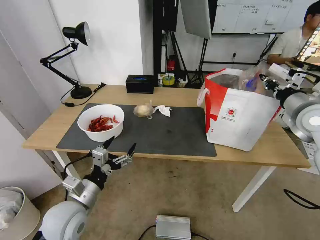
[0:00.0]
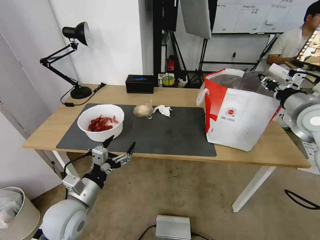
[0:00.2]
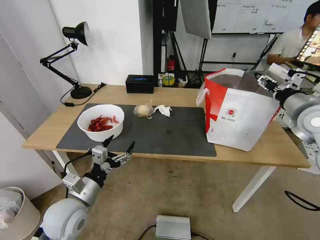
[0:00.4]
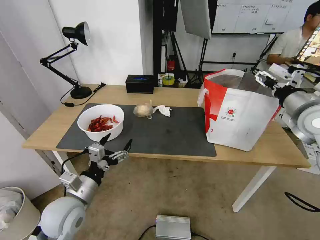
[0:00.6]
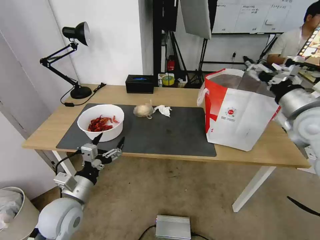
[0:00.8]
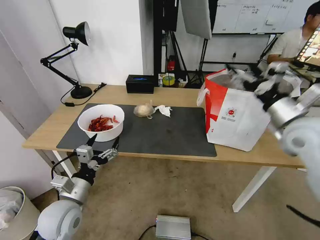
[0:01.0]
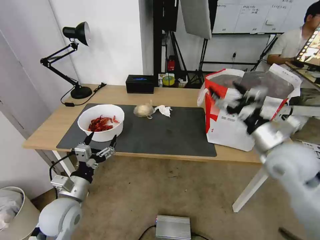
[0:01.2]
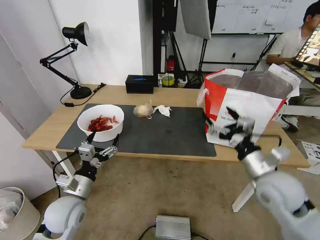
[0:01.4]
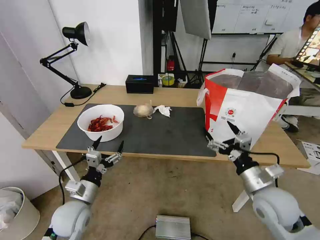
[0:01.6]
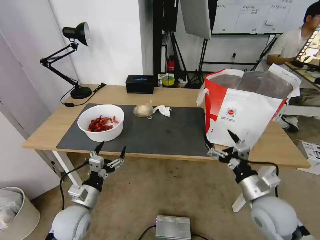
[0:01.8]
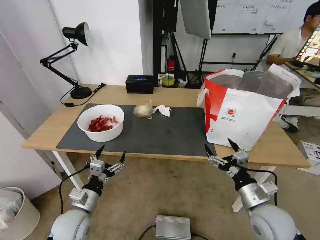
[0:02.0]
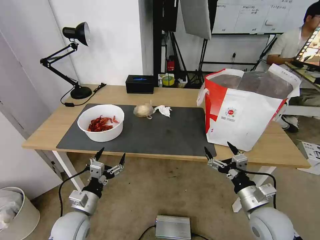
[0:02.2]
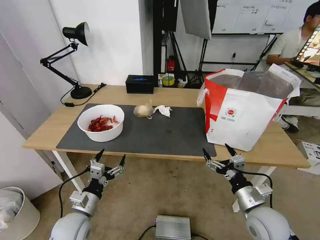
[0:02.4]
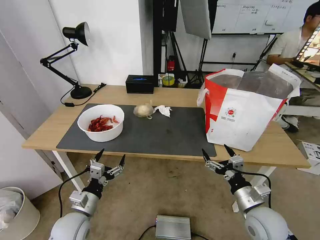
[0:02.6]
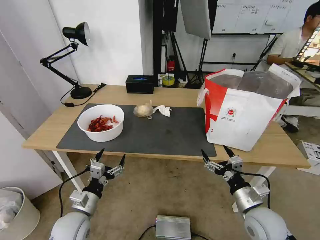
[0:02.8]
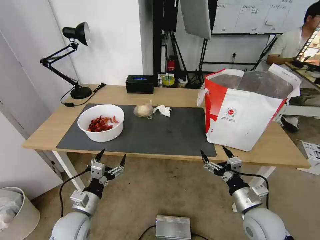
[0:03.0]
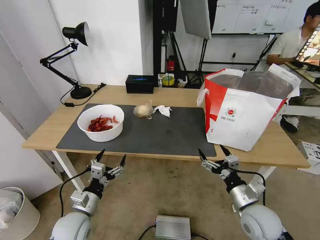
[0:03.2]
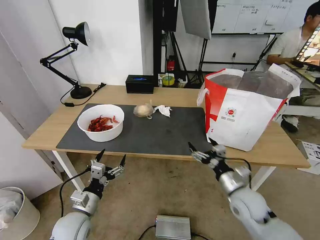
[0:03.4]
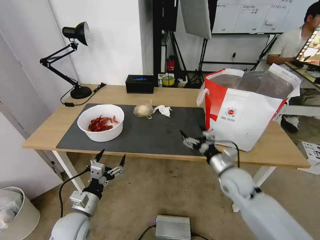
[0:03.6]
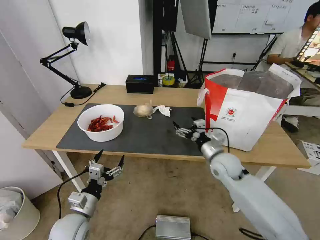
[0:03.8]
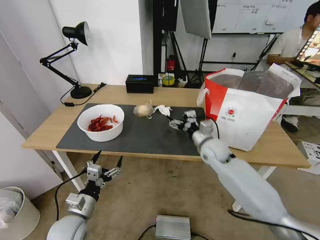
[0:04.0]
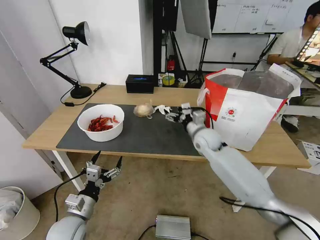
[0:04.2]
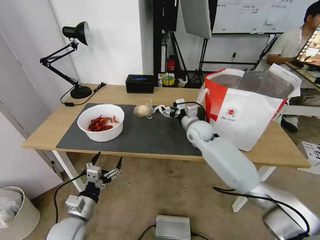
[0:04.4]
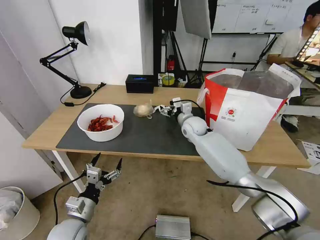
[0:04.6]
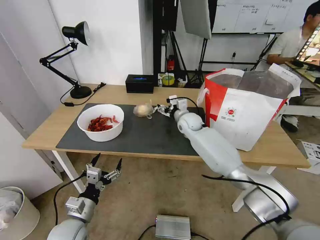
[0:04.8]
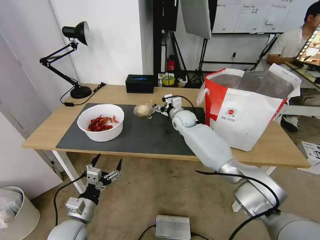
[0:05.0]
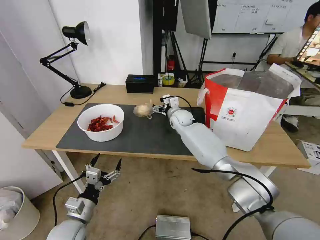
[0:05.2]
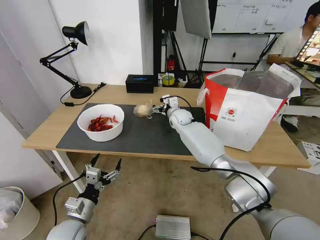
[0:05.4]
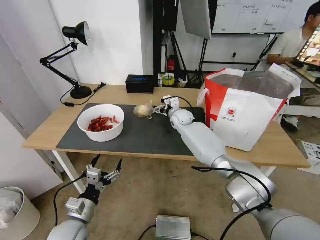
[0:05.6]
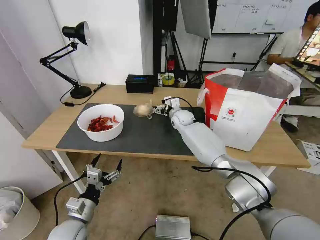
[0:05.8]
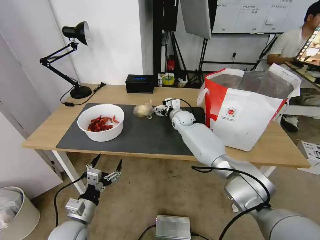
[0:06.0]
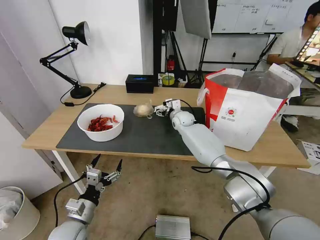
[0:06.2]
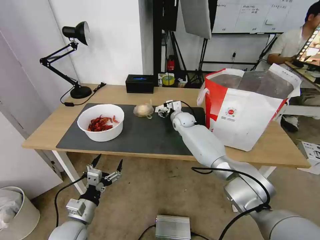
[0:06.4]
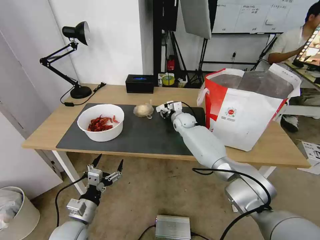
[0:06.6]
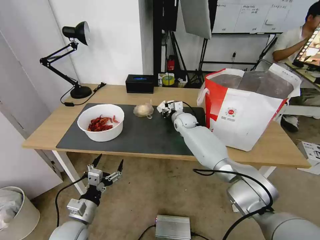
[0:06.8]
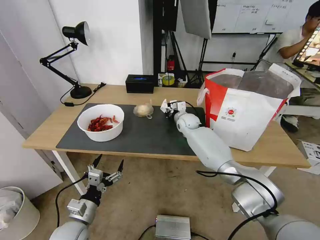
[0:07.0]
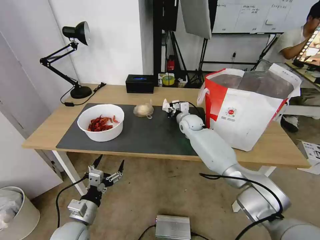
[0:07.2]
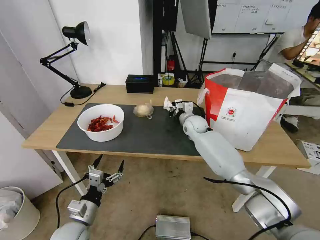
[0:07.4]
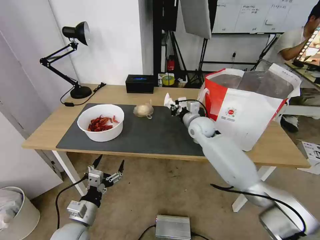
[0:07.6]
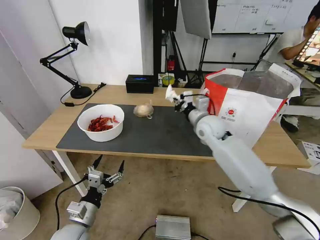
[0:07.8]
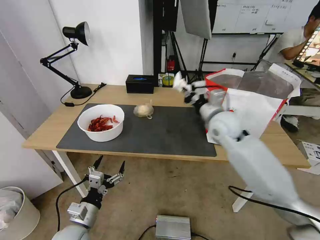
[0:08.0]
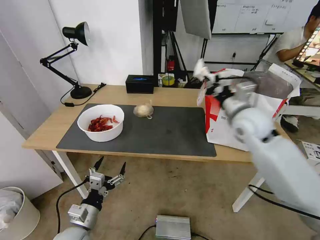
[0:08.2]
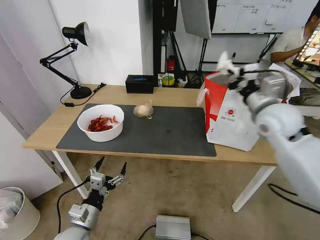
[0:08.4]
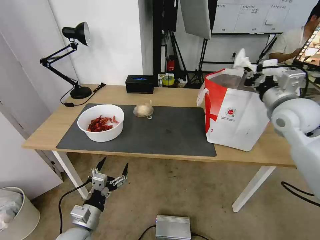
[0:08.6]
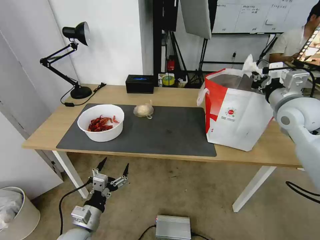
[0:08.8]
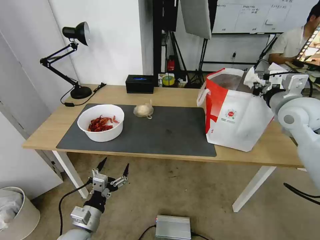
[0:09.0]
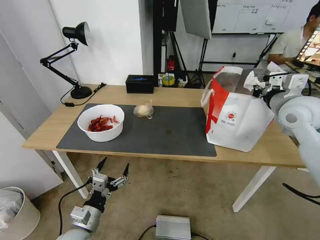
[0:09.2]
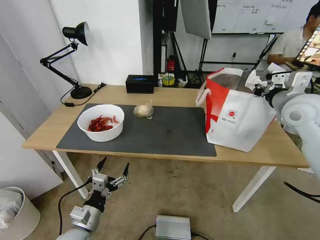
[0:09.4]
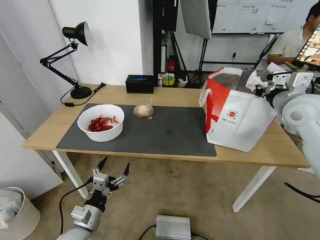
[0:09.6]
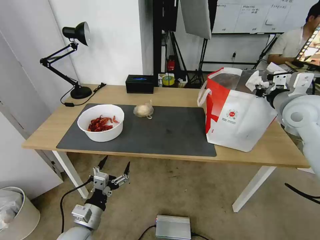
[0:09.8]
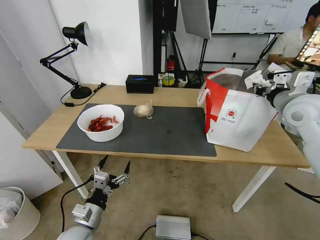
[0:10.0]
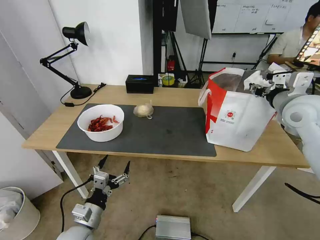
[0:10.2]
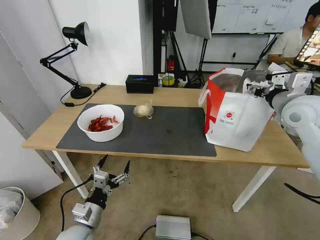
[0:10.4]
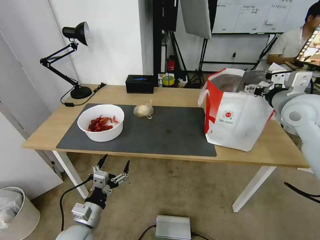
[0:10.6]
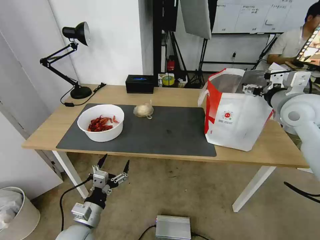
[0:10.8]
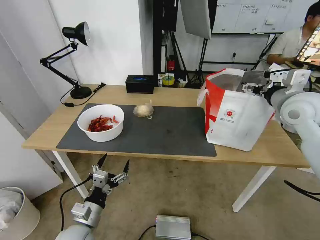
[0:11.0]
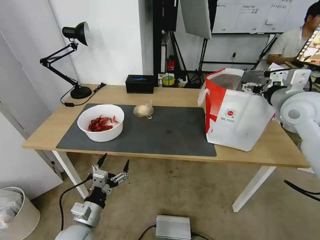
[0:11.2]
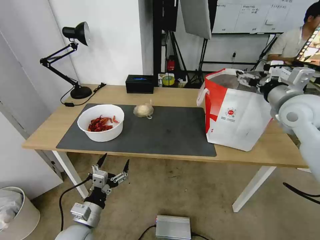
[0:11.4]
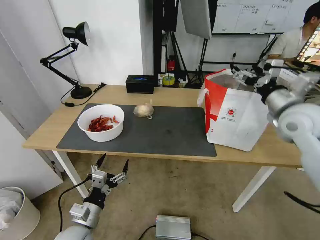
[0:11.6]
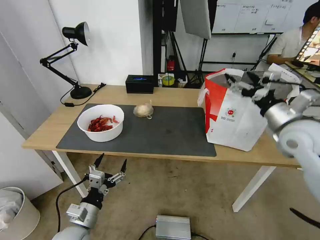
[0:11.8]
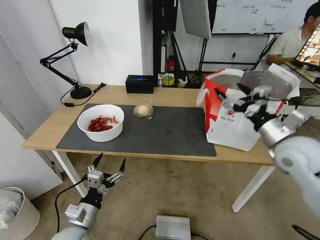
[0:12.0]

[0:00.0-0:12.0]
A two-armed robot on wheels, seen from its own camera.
Task of the whole recording: Pick up the trash from the table and place it into the takeout bag.
0:00.0 to 0:01.6: The right gripper is displaced downward, backward and to the left by about 25 cm, and opens, while the left gripper goes about 5 cm downward.
0:01.6 to 0:03.0: The right gripper heads downward, covering about 10 cm.
0:03.0 to 0:04.4: The right gripper is displaced forward and to the left by approximately 35 cm.
0:04.4 to 0:06.0: The right gripper heads forward, covering about 10 cm.
0:06.0 to 0:07.6: The right gripper moves backward and to the right, approximately 10 cm, and closes.
0:07.6 to 0:09.0: The right gripper travels to the right, upward and backward by roughly 30 cm.
0:09.0 to 0:10.4: The right gripper opens its fingers.
0:10.4 to 0:12.0: The right gripper is displaced backward and downward by some 10 cm.

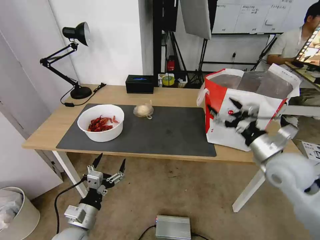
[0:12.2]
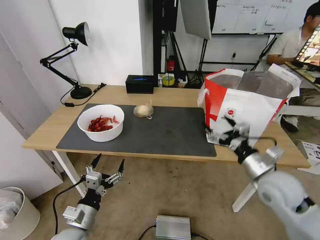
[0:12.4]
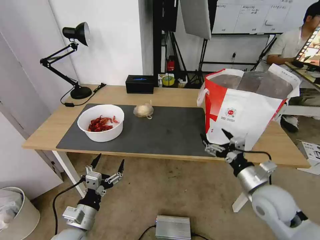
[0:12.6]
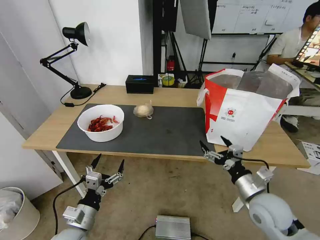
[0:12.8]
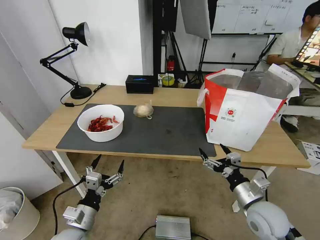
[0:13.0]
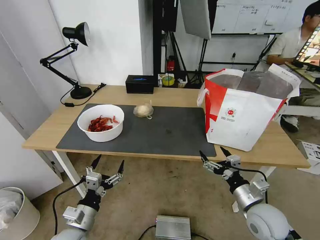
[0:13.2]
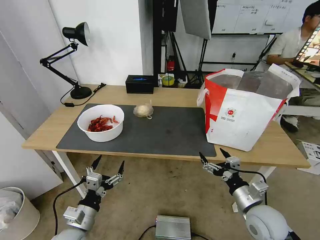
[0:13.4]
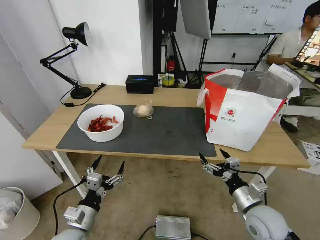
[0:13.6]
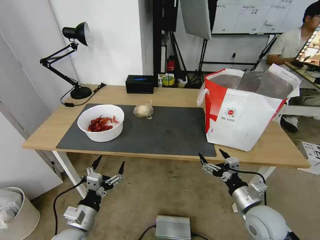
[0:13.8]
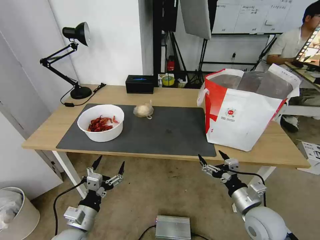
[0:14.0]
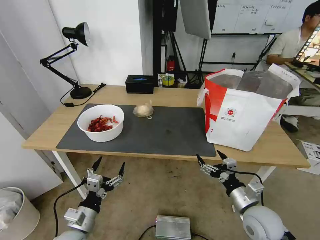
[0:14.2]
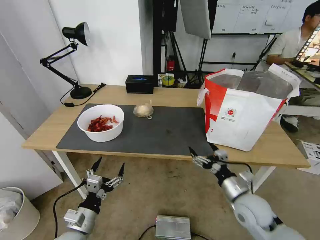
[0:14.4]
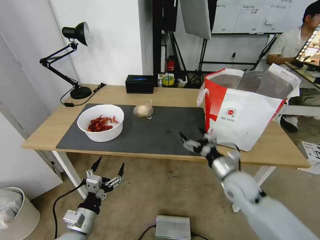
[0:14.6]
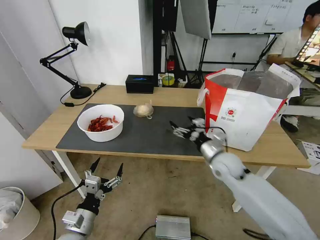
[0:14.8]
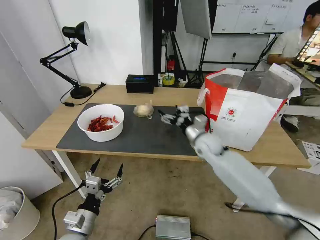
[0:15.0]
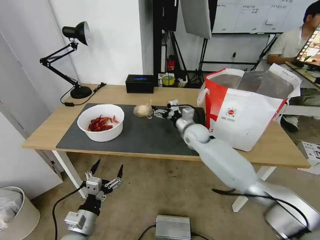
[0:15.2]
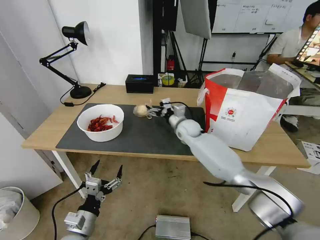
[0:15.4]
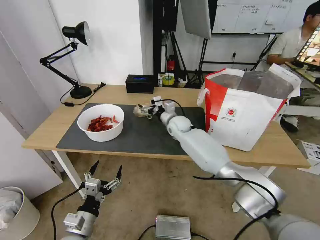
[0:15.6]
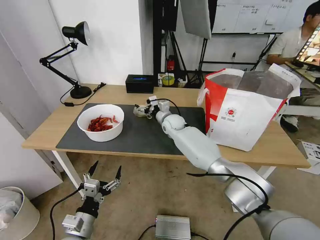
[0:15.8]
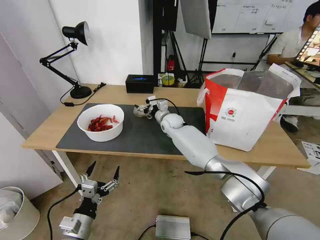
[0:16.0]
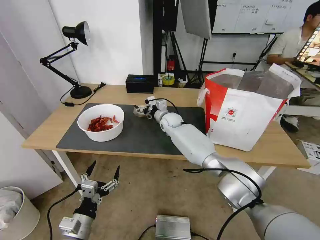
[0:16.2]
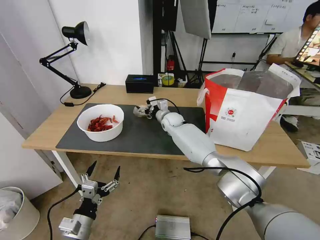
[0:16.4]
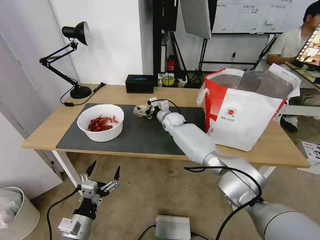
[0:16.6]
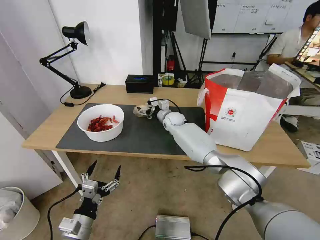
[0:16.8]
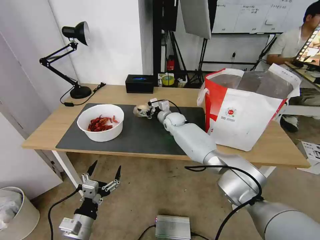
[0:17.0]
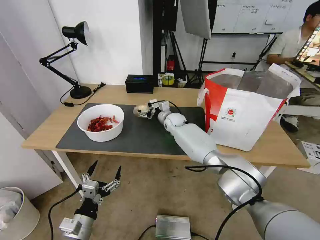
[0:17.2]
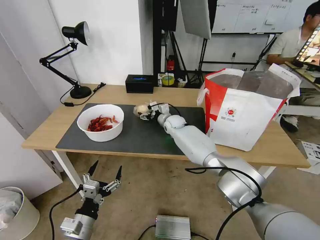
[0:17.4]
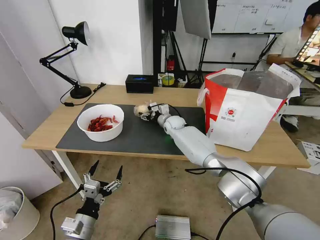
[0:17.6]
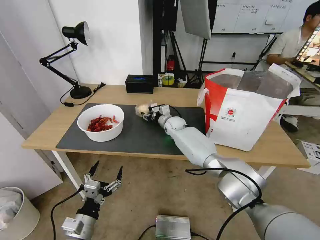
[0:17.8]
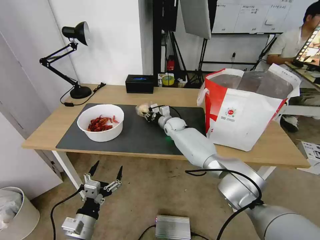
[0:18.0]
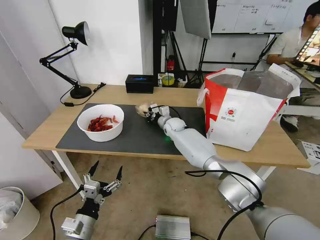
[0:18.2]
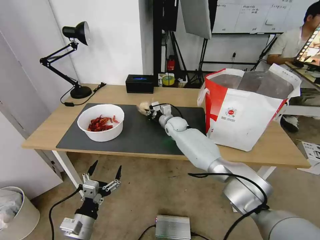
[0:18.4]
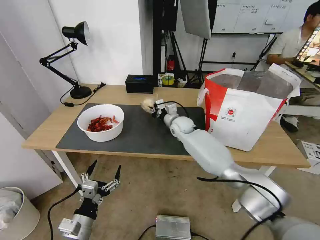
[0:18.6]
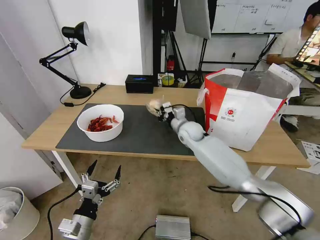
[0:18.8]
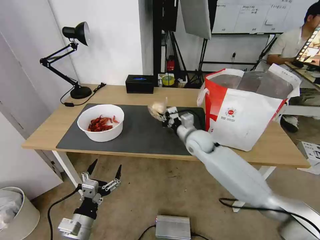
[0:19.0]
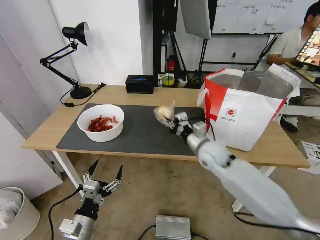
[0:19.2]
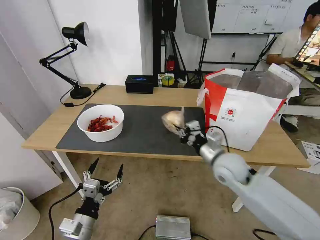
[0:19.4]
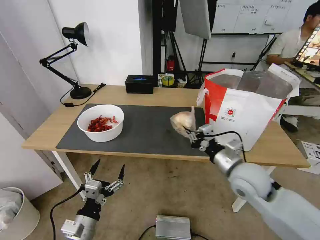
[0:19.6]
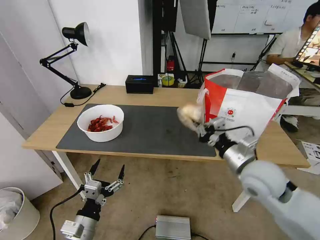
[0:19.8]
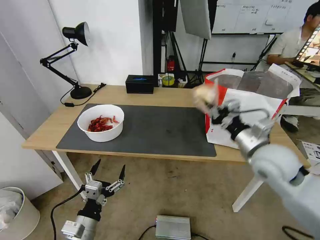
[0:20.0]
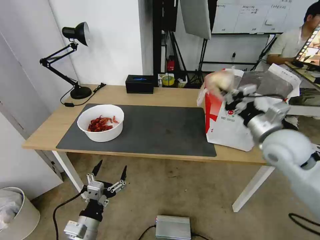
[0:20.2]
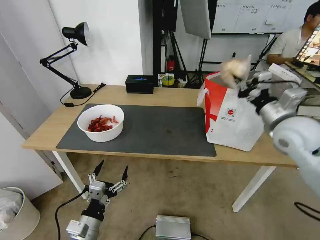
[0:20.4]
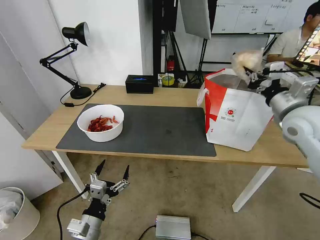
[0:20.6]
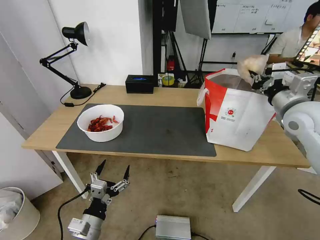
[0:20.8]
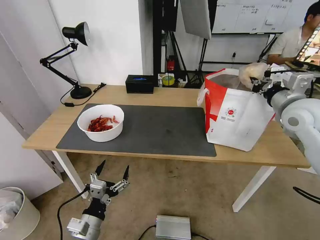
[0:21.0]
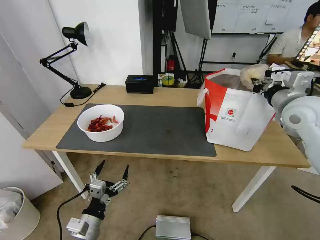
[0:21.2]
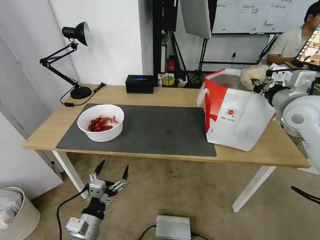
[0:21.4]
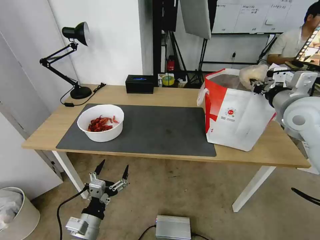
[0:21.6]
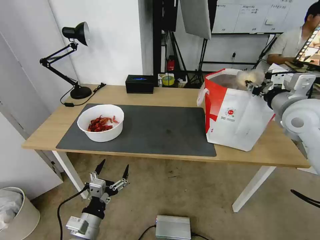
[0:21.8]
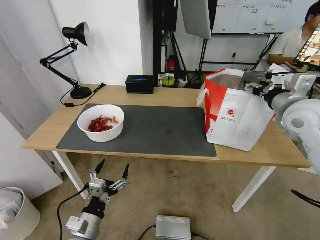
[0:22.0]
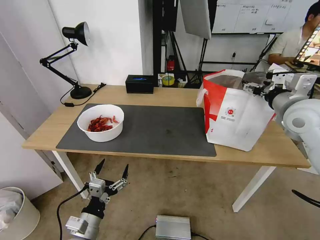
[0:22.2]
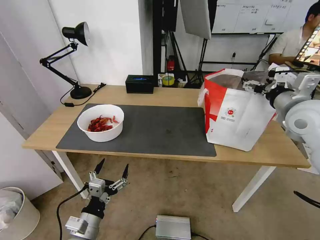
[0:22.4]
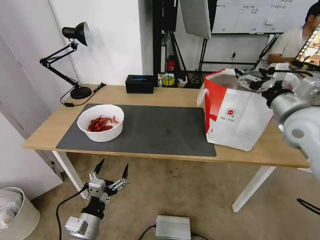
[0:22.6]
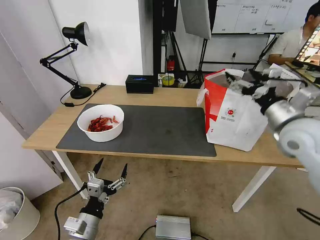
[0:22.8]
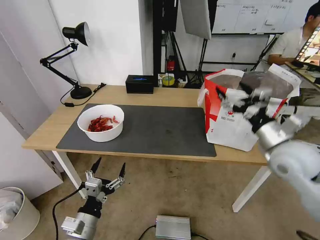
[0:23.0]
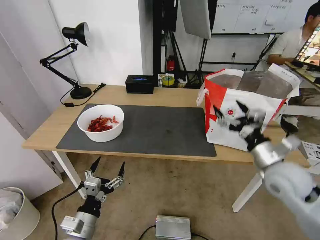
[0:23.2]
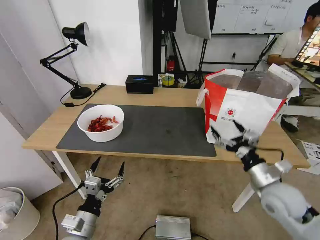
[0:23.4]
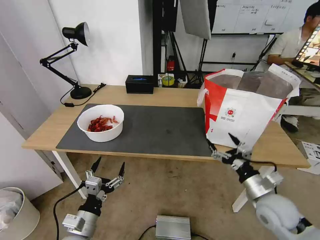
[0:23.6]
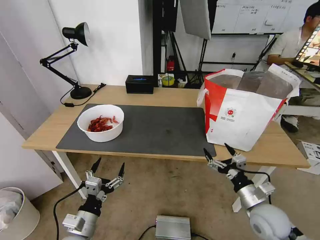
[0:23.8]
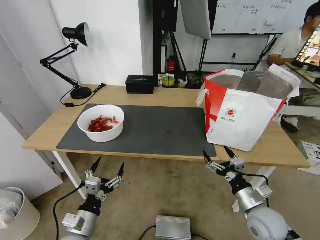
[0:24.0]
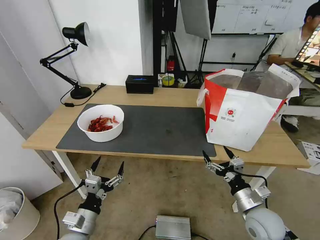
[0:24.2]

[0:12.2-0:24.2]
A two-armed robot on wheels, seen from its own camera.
Task of the whole recording: Pick up the trash from the table and place it into the takeout bag.
0:12.2 to 0:13.8: The right gripper goes some 20 cm downward and backward.
0:13.8 to 0:15.2: The right gripper shifts approximately 35 cm forward and to the left.
0:15.2 to 0:16.6: The right gripper travels forward and to the left by about 15 cm.
0:16.6 to 0:18.2: The right gripper closes up.
0:18.2 to 0:19.8: The right gripper travels backward and to the right by about 35 cm.
0:19.8 to 0:21.2: The right gripper travels forward, upward and to the right by approximately 20 cm.
0:21.2 to 0:22.6: The right gripper opens.
0:22.6 to 0:24.2: The right gripper is displaced downward and backward by about 30 cm.
